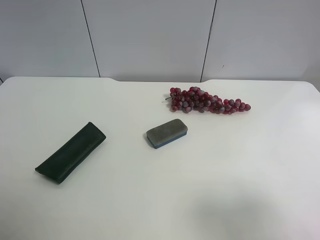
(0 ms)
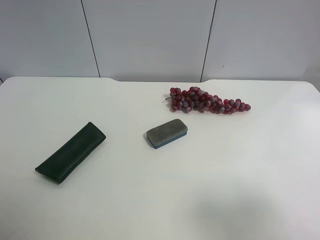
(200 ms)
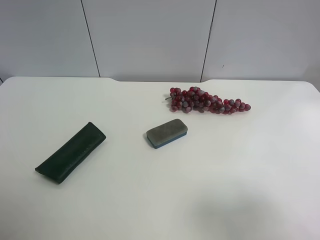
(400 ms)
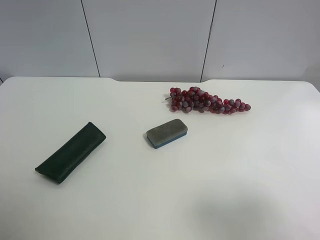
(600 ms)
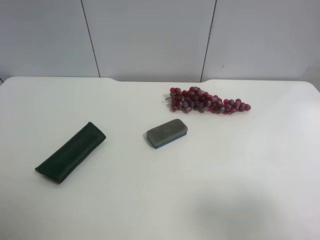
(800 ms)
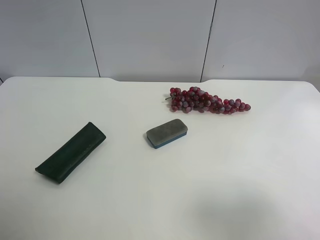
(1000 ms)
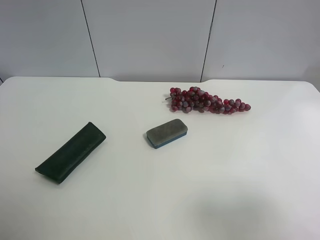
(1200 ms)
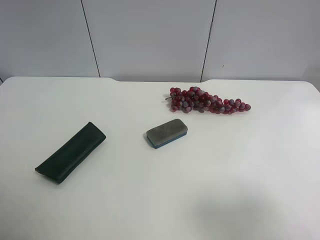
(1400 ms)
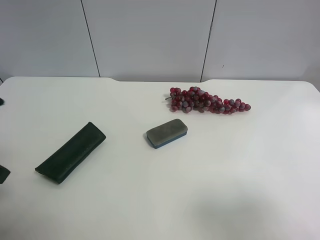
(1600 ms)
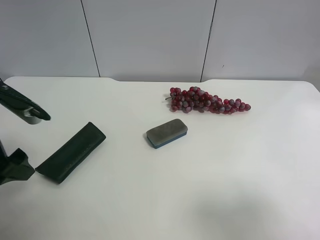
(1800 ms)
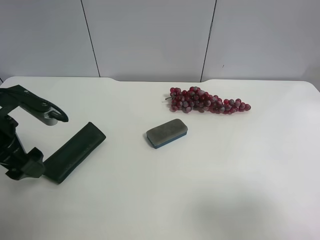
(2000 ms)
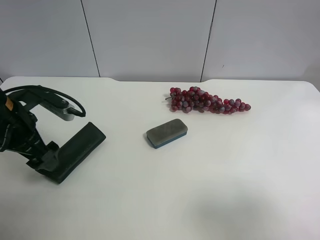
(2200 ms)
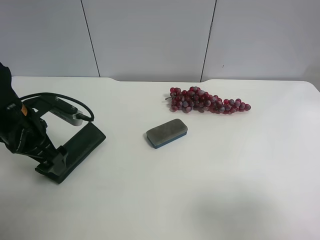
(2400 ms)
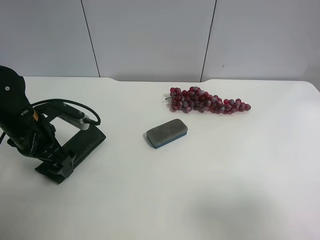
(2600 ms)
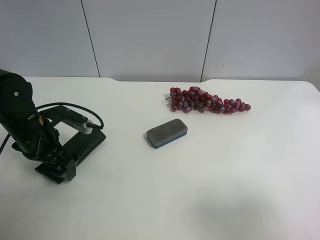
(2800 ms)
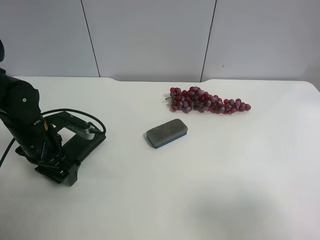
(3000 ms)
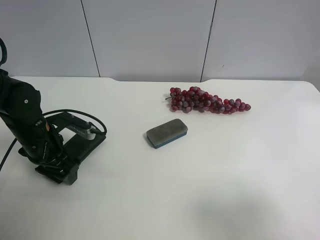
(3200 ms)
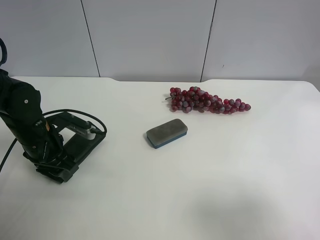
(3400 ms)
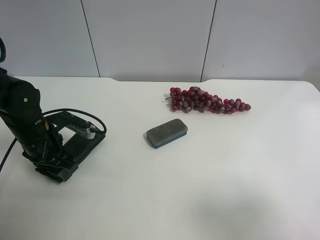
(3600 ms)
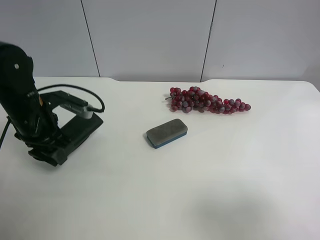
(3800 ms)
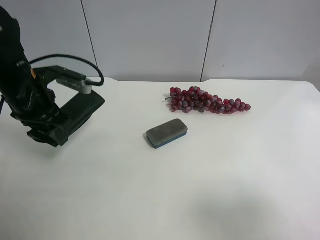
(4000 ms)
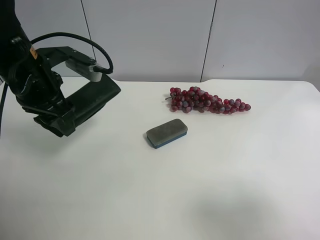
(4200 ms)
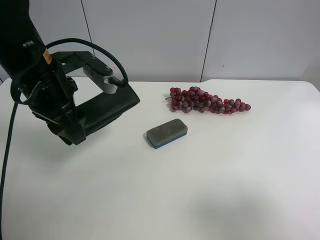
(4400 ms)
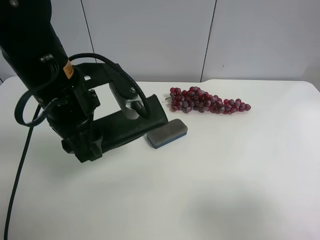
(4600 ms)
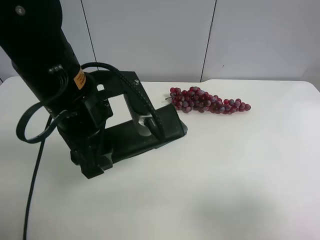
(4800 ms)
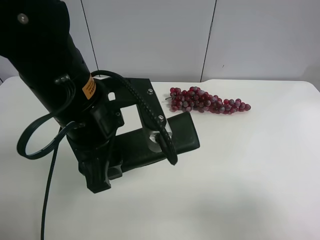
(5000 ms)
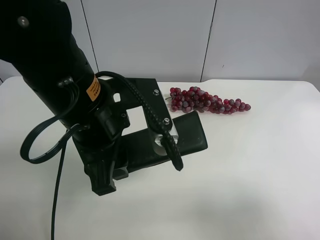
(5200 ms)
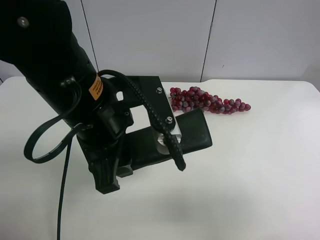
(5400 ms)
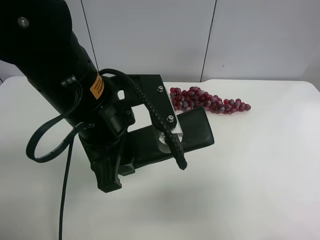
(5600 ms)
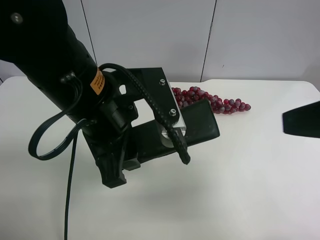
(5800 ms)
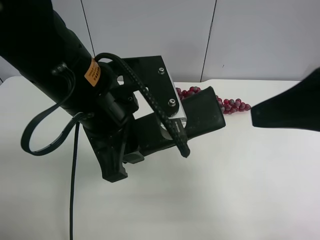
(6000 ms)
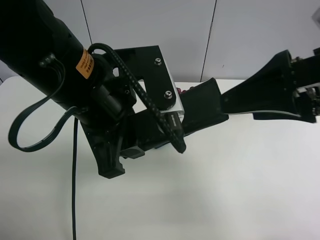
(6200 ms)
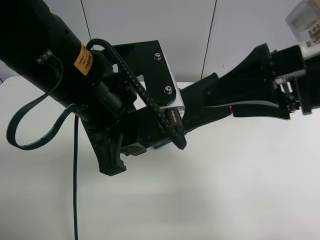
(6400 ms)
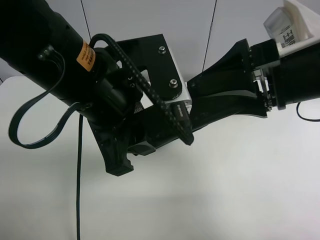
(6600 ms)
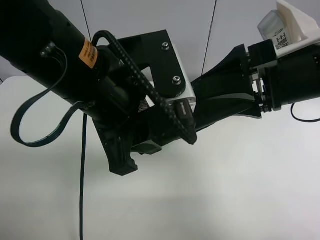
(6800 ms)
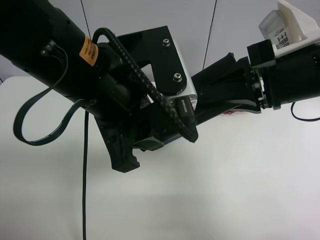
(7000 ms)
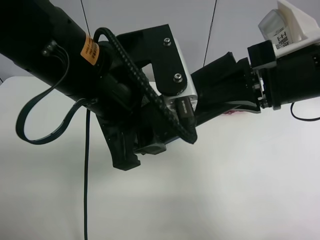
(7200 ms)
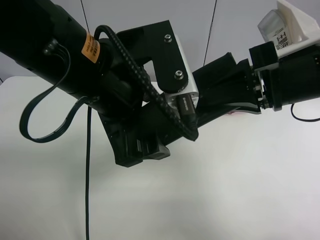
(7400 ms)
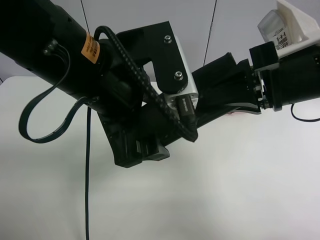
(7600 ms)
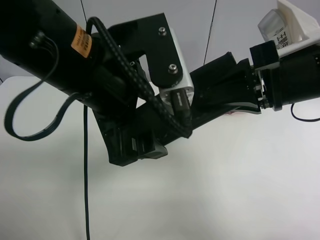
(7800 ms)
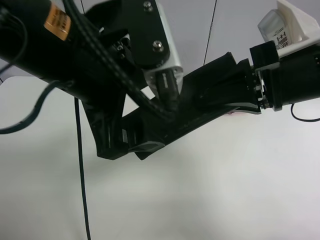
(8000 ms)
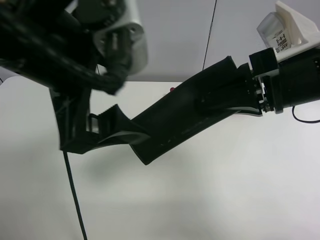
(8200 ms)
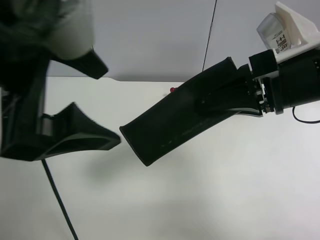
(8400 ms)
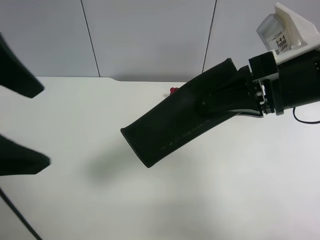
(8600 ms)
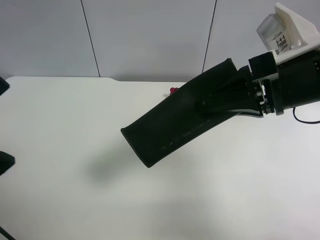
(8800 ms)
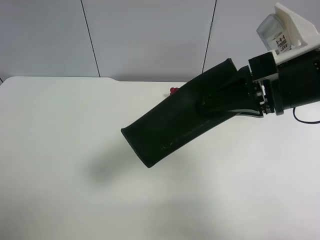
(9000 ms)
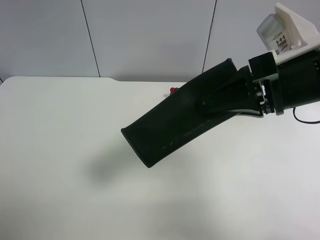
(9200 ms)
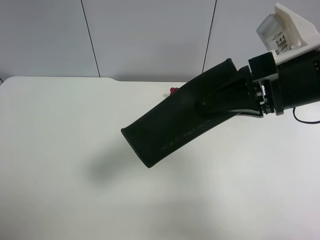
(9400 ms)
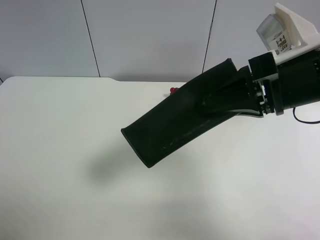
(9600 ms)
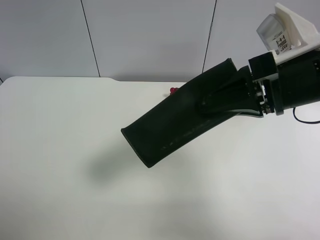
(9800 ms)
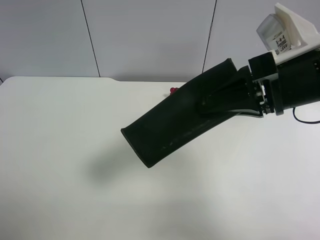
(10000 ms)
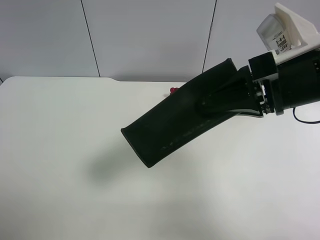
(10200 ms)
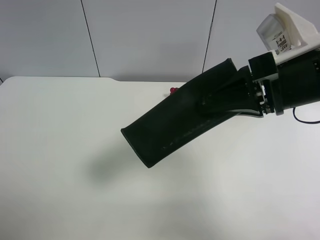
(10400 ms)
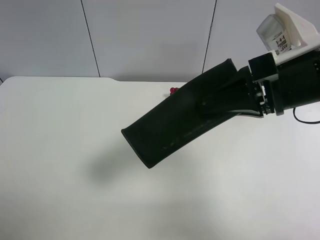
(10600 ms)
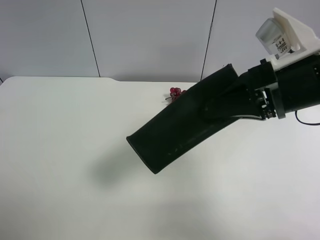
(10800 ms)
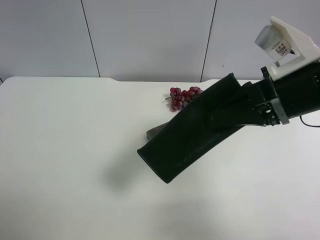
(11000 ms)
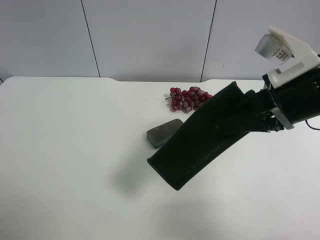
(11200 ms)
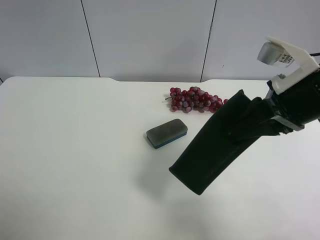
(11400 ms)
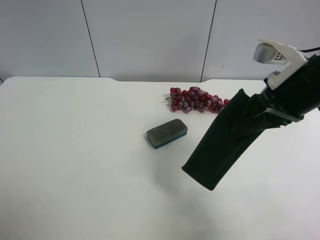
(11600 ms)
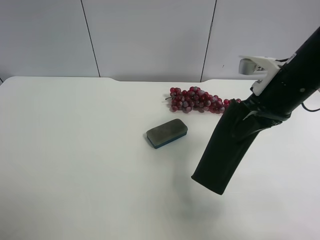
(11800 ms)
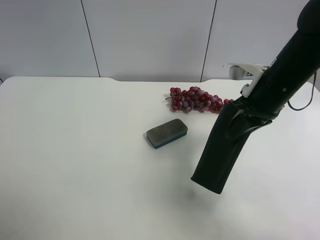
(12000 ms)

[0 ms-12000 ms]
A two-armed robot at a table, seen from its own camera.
Task of the whole recording: use the left gripper to pick up the item and transfer it from the left gripper to the right gripper.
1600 ms to 3000 ms: The left gripper heads downward and forward, covering roughly 20 cm.
3000 ms to 4400 ms: The left gripper goes some 15 cm upward and to the right, and closes its fingers.
4400 ms to 6000 ms: The left gripper is displaced to the right and backward by approximately 10 cm; the right gripper shifts some 15 cm forward and to the left.
6000 ms to 7600 ms: The right gripper heads forward, covering about 5 cm, and closes up; the left gripper opens.
7600 ms to 9000 ms: The left gripper heads to the left and backward, covering approximately 20 cm.
10400 ms to 12000 ms: The right gripper shifts approximately 10 cm forward and downward.

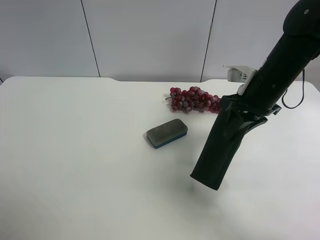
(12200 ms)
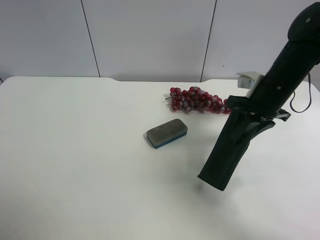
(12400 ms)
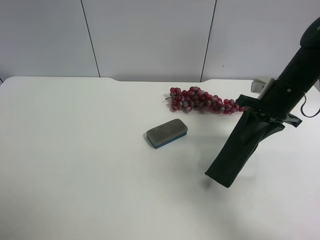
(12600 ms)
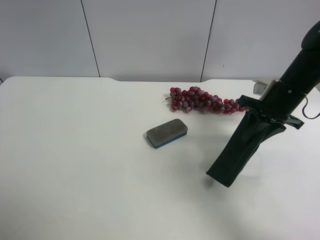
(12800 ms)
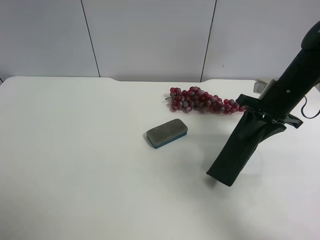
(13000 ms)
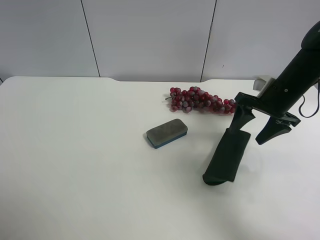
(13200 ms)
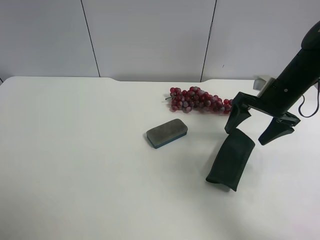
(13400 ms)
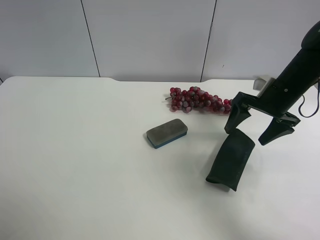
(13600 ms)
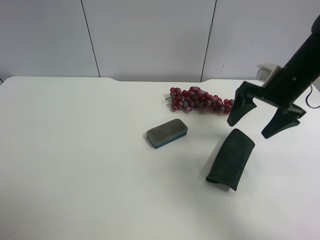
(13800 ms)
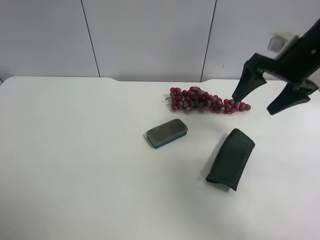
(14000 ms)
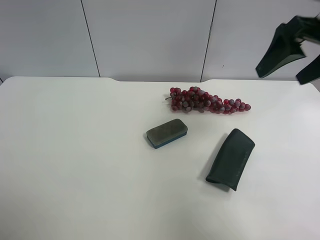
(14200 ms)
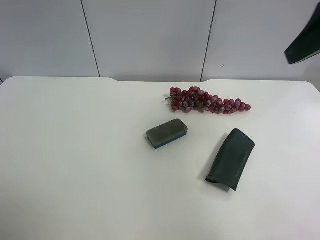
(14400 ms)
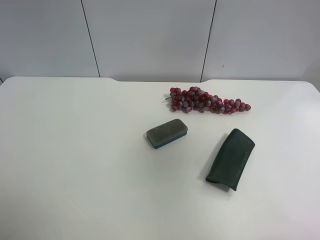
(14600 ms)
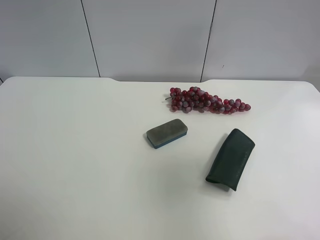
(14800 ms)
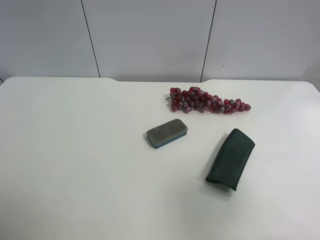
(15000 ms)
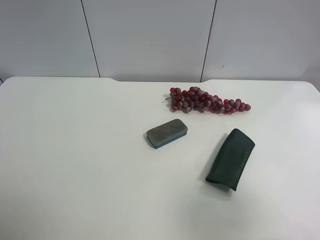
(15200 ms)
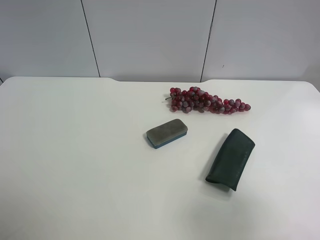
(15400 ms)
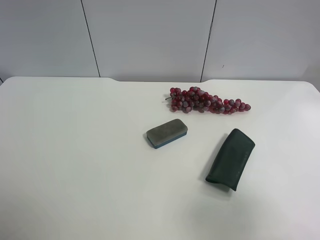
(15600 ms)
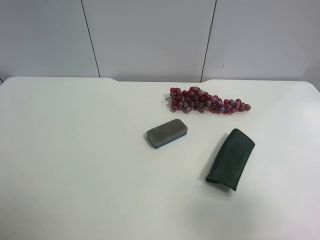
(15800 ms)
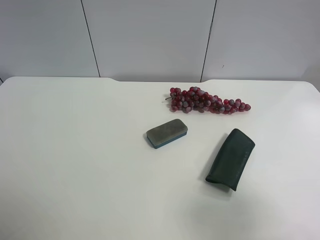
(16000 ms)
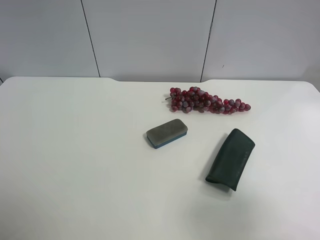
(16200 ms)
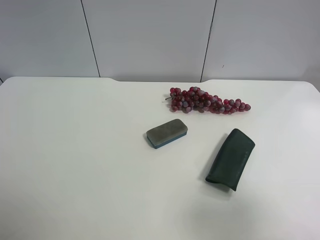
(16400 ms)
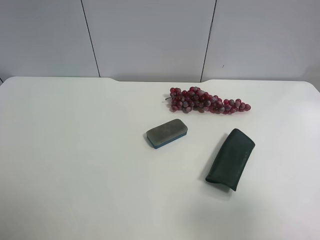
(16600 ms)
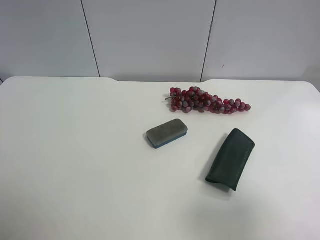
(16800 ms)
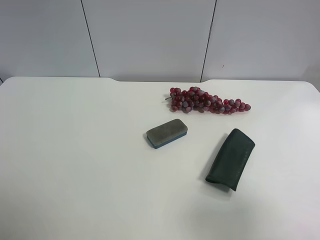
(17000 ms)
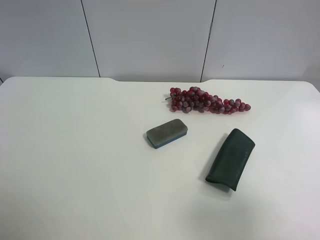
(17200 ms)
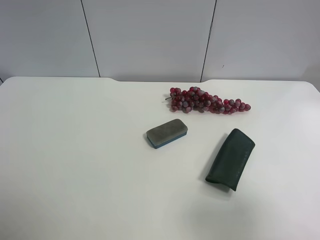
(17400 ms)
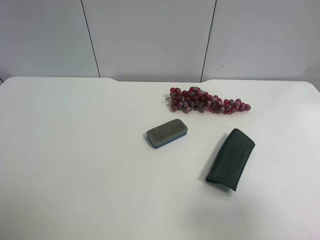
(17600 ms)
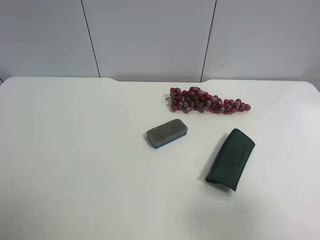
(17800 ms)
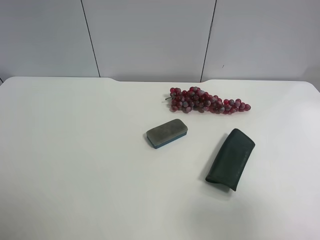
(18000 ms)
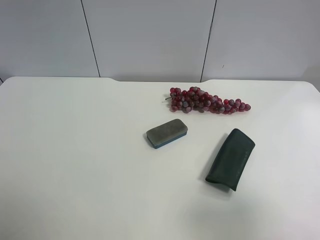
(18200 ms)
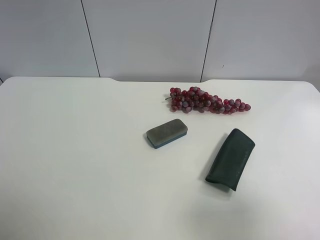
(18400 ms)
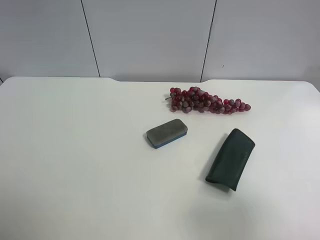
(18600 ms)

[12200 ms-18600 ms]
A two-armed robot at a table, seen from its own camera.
Task of the whole recording: use the left gripper to pick up the item and transfer it from the left gripper to the right gripper.
12200 ms to 13800 ms: The right gripper is displaced to the right by approximately 5 cm, and opens up.
13800 ms to 15400 ms: The right gripper travels backward by roughly 30 cm.
17000 ms to 18600 ms: Both grippers stay about where they are.
